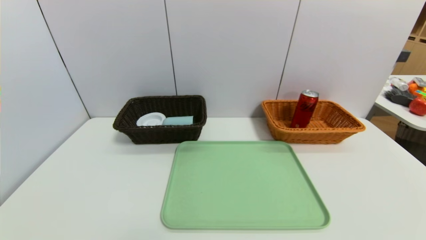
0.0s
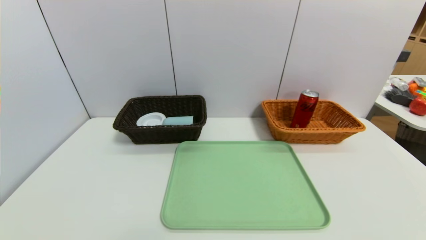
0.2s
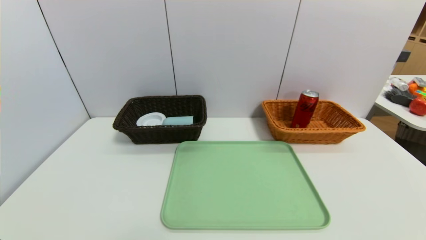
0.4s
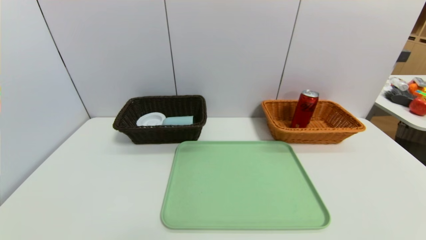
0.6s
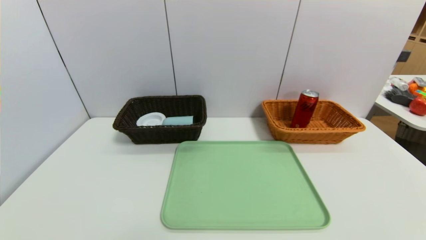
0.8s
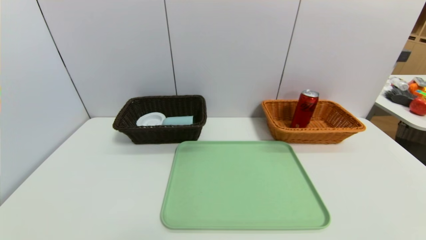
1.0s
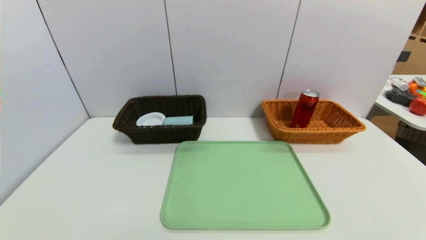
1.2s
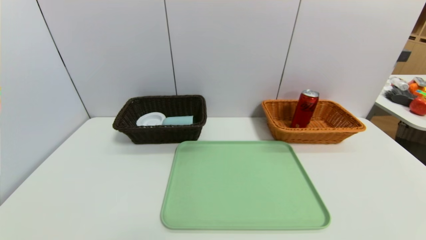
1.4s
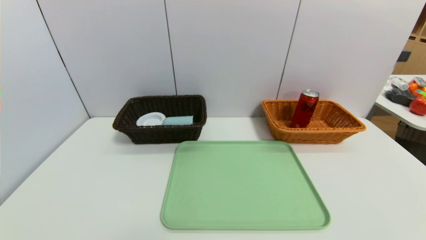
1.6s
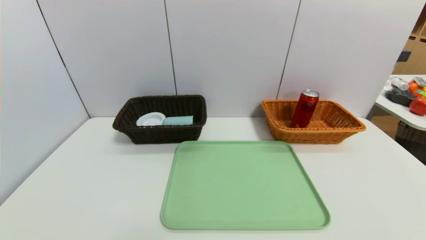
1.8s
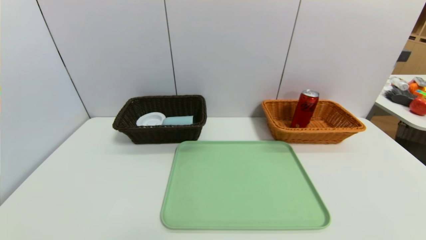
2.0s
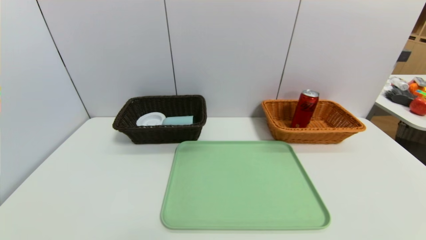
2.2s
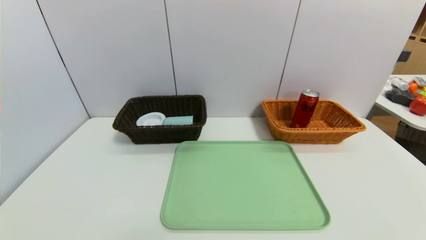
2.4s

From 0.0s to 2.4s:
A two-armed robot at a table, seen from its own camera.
Task of the whole recording: place the food in the right basket with the right gripper, and place the non food items in the left basket with the left gripper.
From 1.2s to 2.4s: Both grippers stay about where they are.

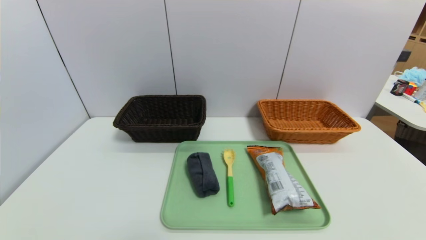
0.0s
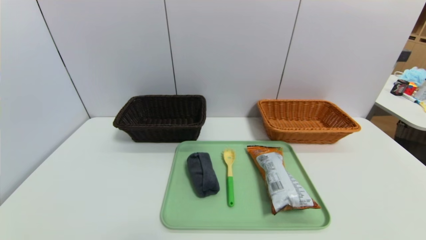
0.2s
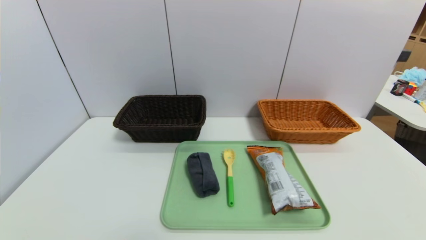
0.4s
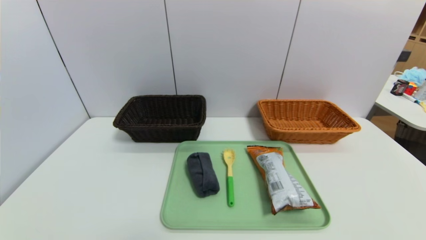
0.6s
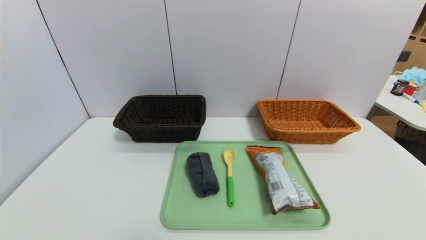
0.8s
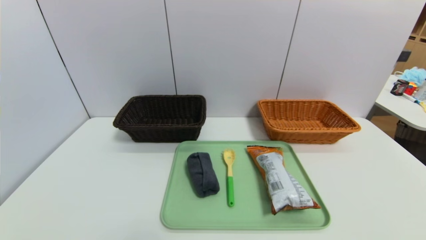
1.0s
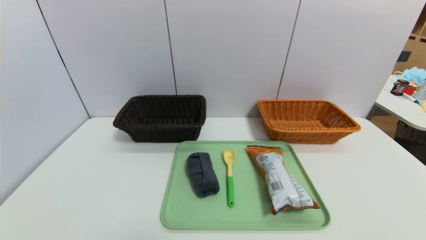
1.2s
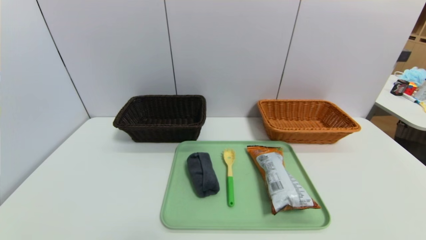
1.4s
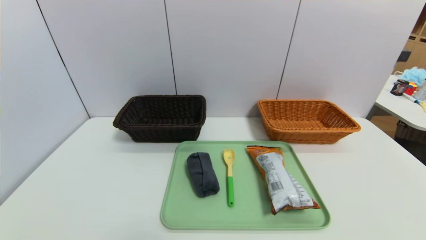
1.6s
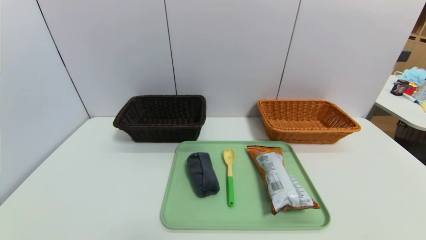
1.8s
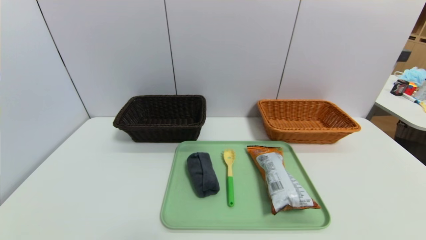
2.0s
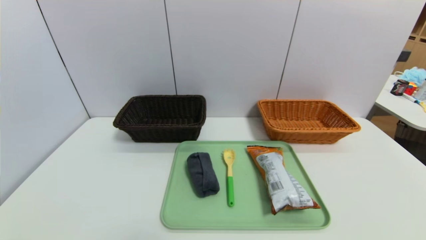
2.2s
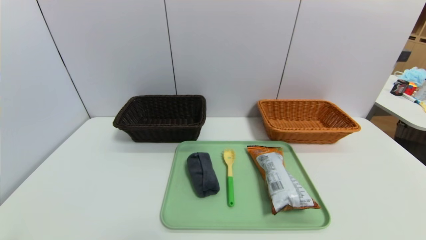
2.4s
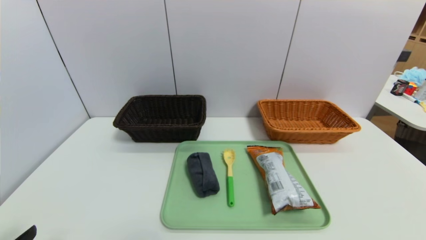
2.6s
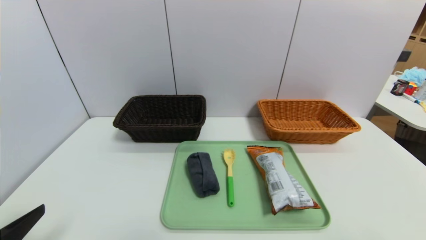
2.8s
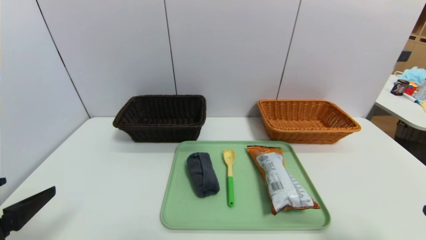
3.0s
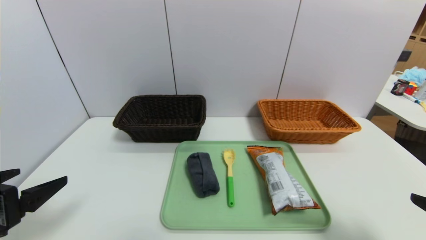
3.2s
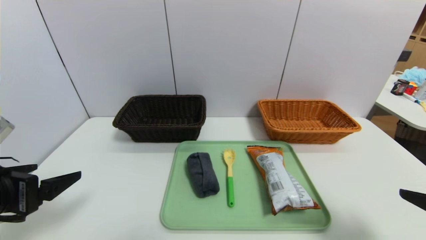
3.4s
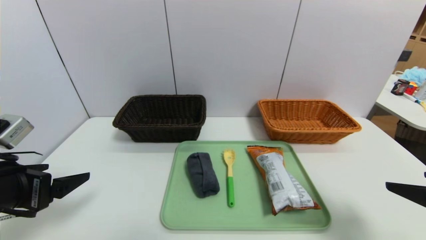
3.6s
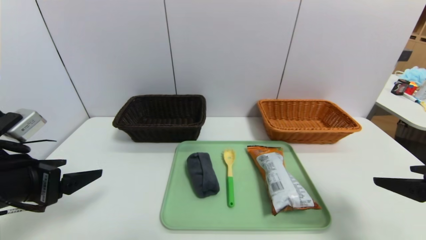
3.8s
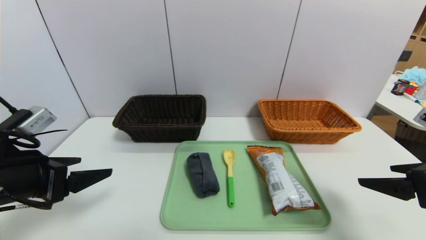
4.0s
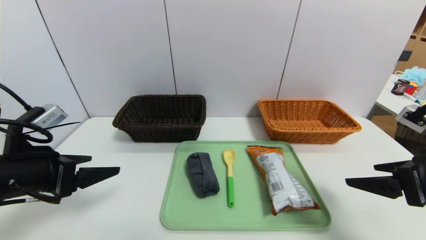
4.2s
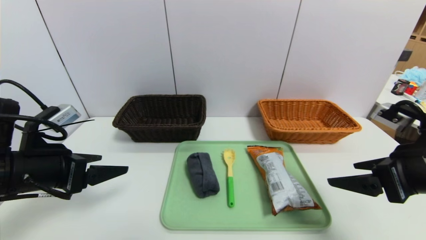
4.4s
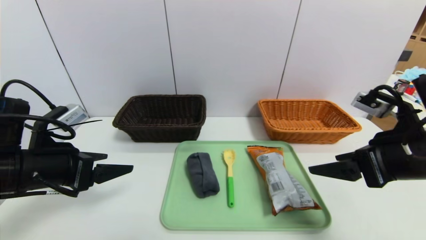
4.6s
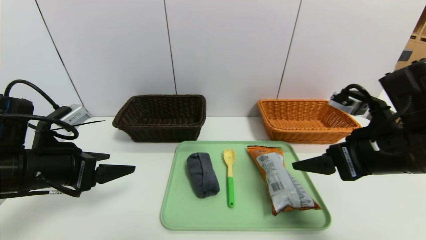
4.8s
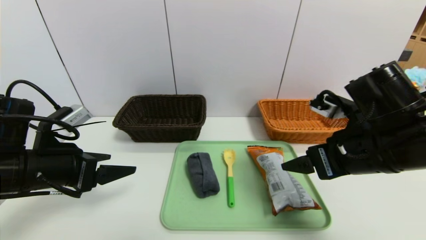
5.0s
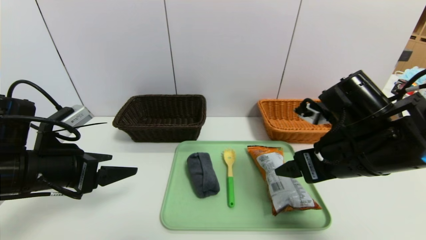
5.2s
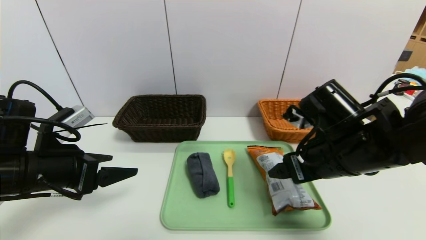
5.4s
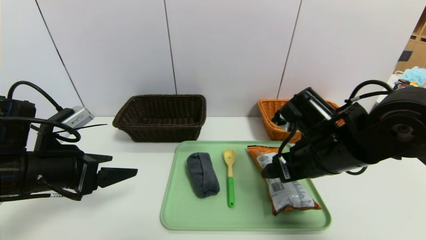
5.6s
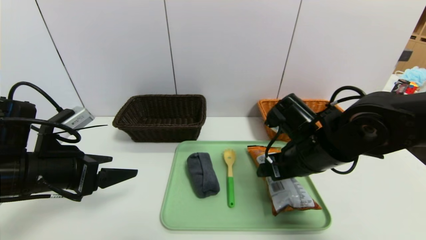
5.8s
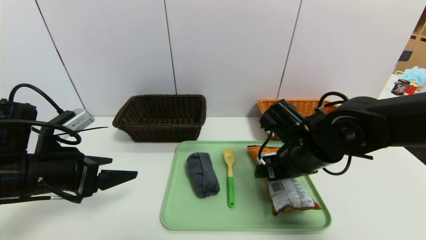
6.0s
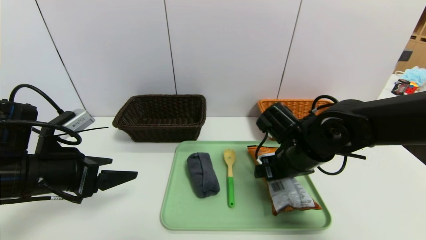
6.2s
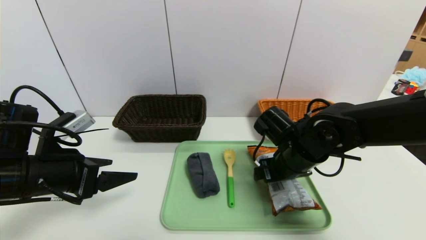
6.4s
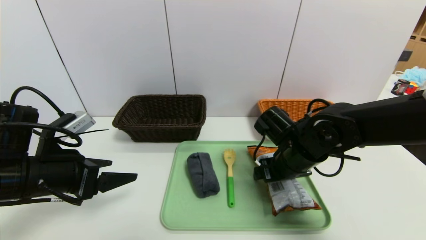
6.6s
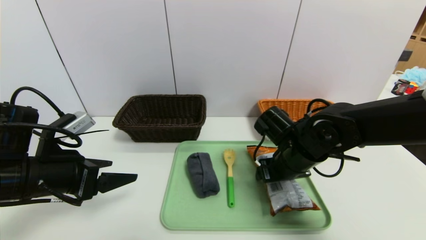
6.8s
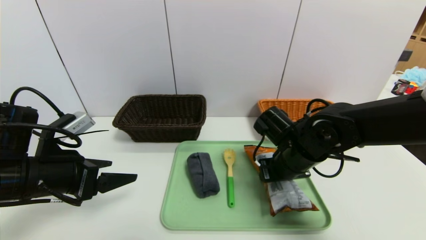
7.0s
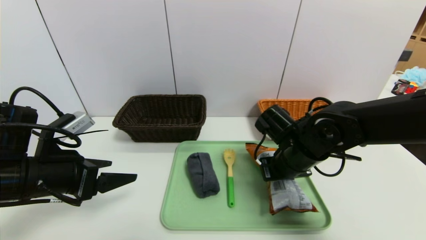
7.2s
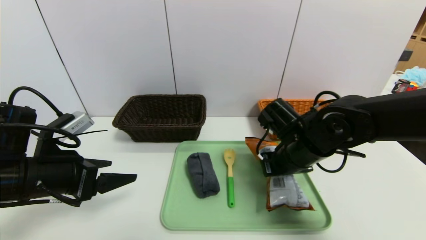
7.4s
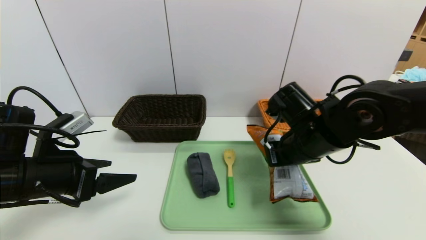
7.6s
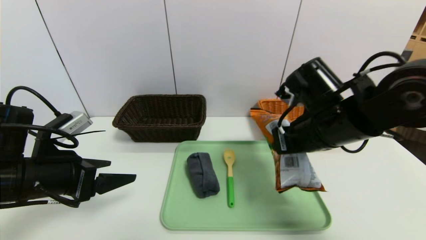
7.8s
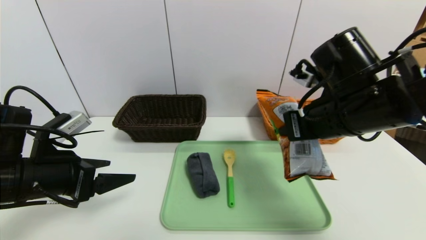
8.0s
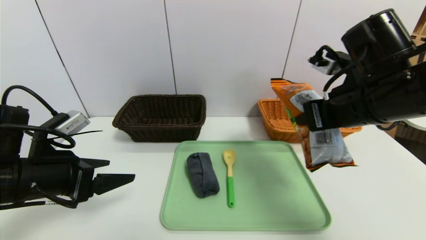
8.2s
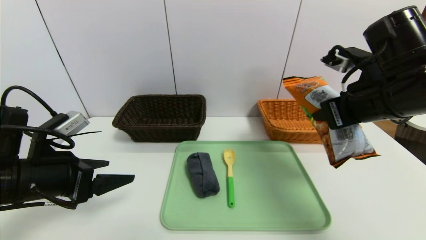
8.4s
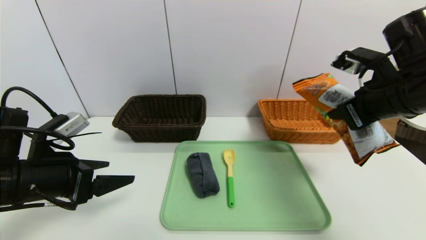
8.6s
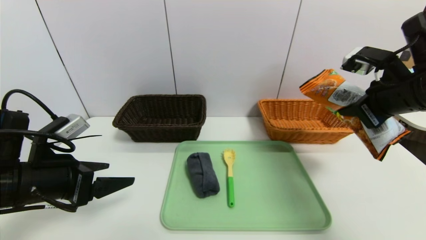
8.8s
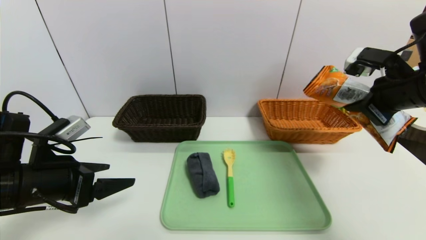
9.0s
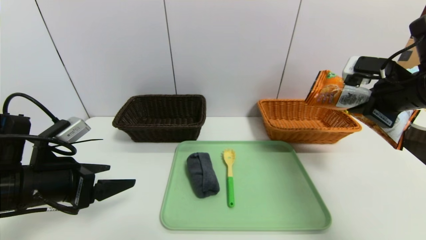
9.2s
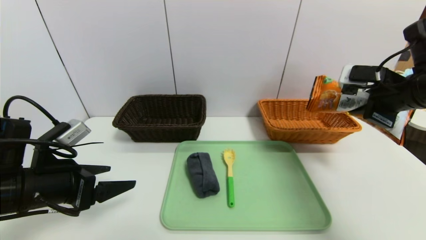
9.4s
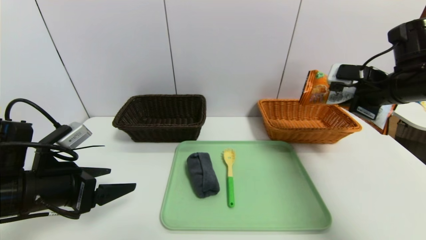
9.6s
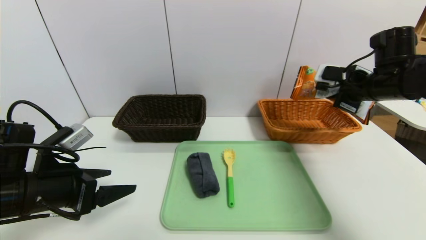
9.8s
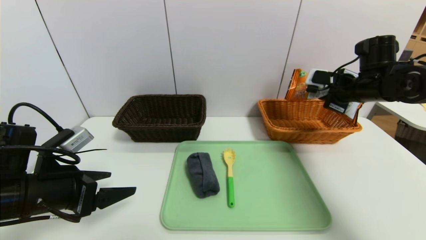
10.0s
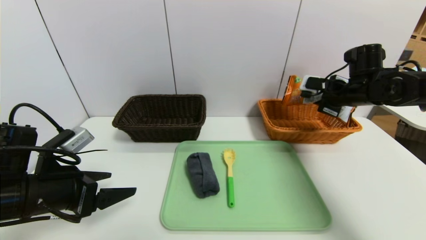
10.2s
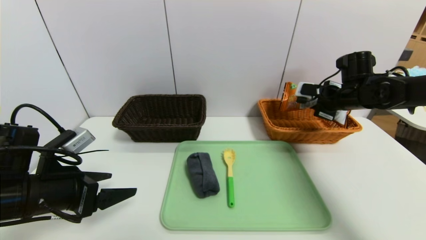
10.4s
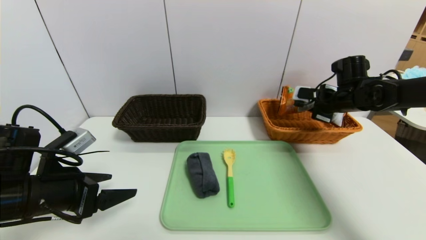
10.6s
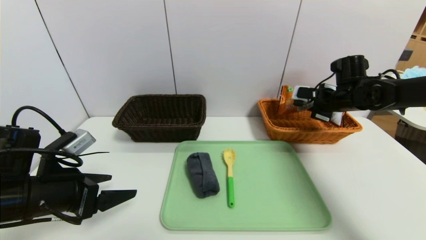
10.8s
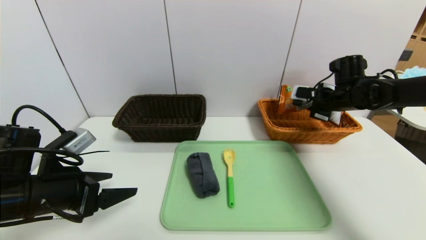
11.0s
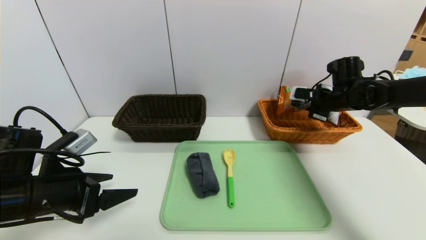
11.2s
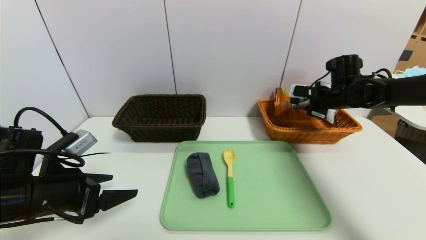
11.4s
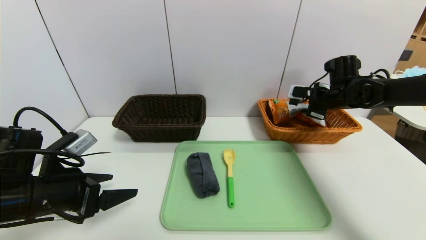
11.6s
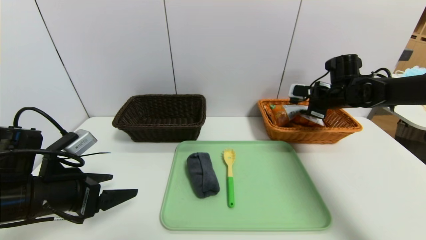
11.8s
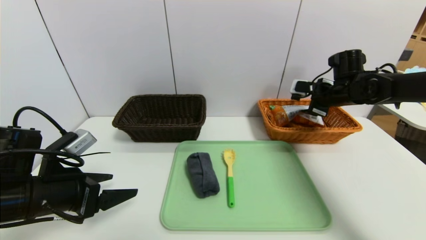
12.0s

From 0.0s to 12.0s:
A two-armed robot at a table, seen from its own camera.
Task of the whole recording: place the food in the right basket with the right gripper, and place the non food items in the left basket with the left gripper.
Step, from 0.0s to 12.0s: Grasp the cookie and put it in the right basket.
From 1.6s to 3.0s: The left gripper is displaced upward and forward by some 15 cm.
From 3.0s to 4.4s: Both grippers travel together forward, roughly 10 cm.
From 4.4s to 6.0s: The right gripper goes about 20 cm to the left, forward and downward.
From 6.0s to 7.6s: The right gripper closes up.
From 7.6s to 9.0s: The right gripper shifts about 20 cm to the right and upward.
From 9.0s to 10.4s: The right gripper is displaced forward and downward by some 15 cm.
From 10.4s to 12.0s: The right gripper opens up.

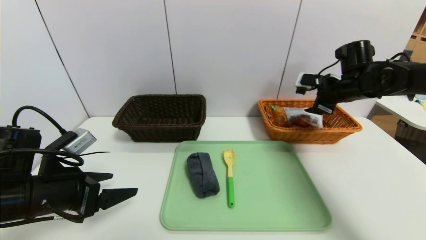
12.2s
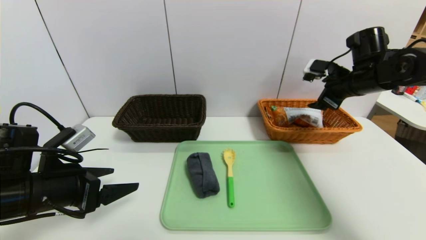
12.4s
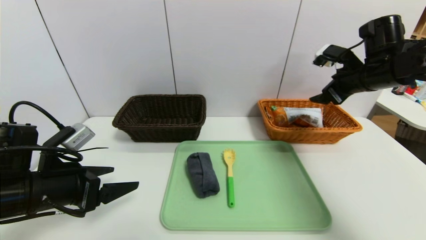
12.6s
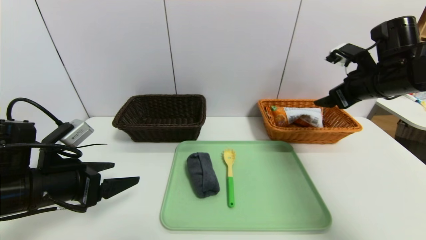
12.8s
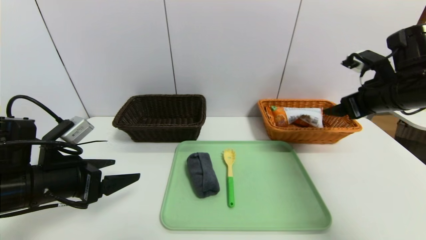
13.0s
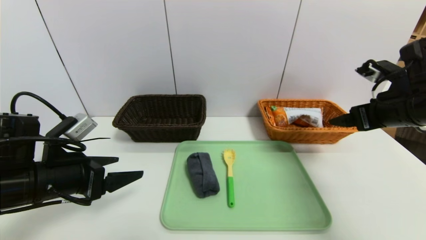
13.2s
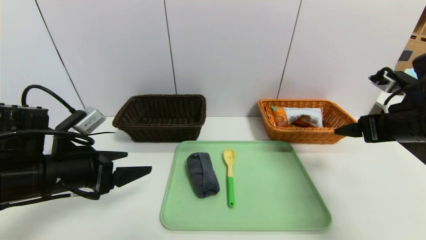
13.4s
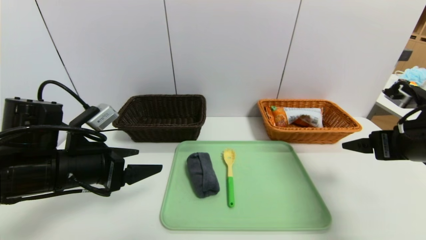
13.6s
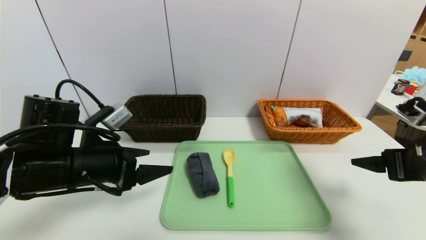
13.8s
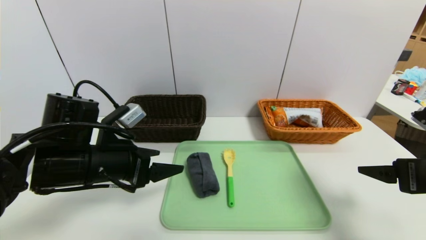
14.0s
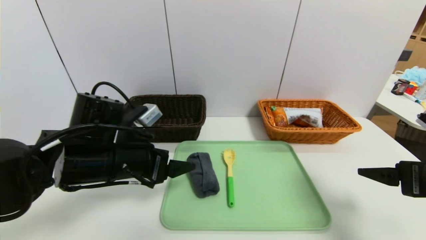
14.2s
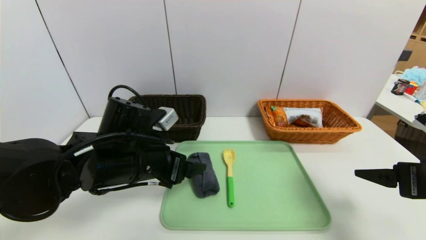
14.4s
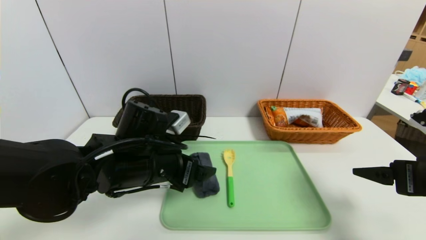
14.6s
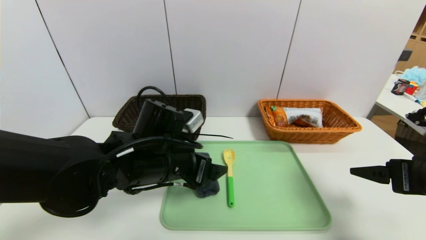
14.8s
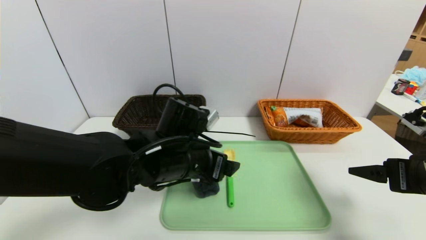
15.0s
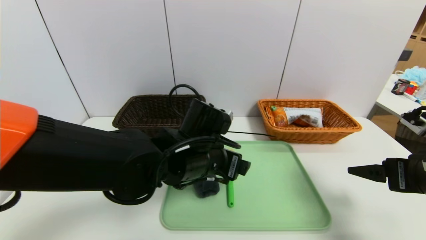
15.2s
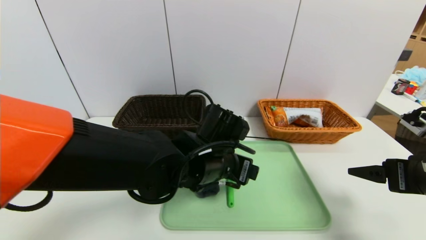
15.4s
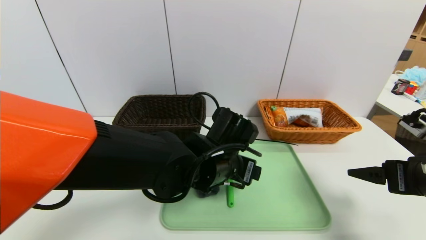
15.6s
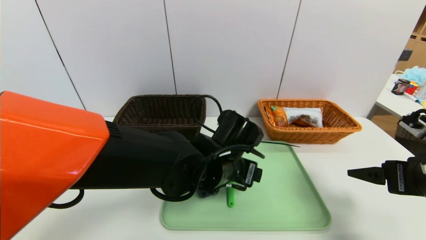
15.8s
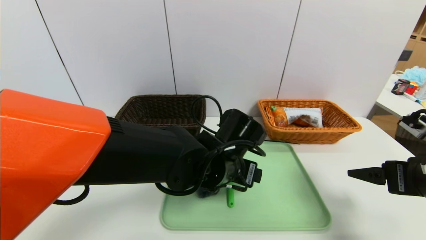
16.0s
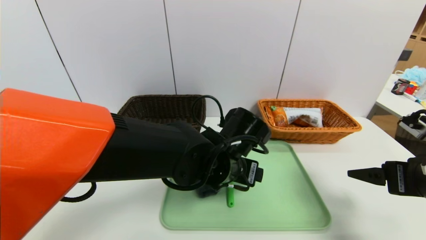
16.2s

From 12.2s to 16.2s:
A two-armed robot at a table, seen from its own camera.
Task of the whole recording: place the food in the right basket with the right gripper, and place the non food items in the left basket with the left gripper.
From 12.2s to 13.6s: The left gripper ends up about 5 cm from where it was. Meanwhile the right gripper heads backward, covering approximately 20 cm.
From 13.6s to 14.8s: The left gripper is displaced to the right by some 15 cm.
From 14.8s to 16.2s: The left gripper heads to the right, covering about 10 cm.
